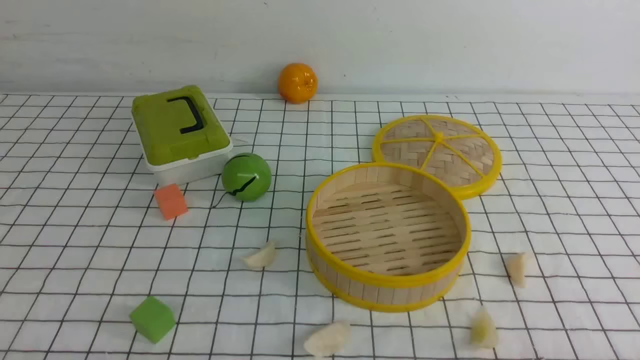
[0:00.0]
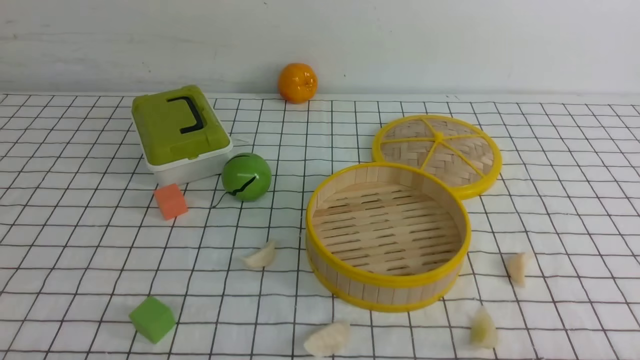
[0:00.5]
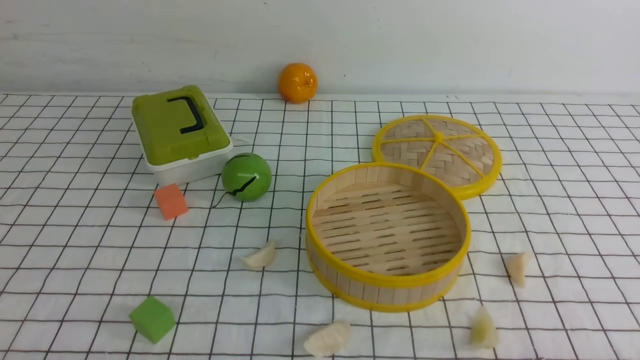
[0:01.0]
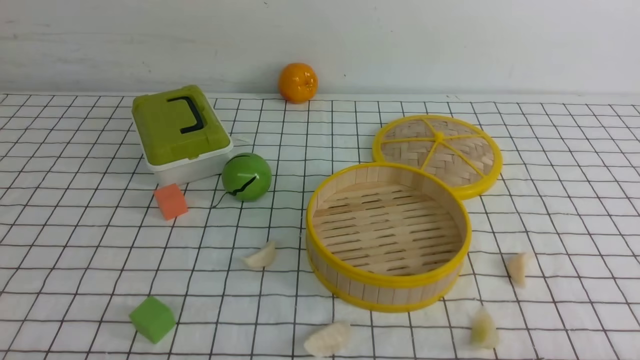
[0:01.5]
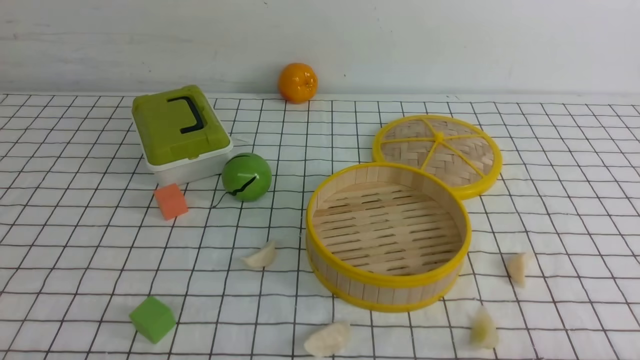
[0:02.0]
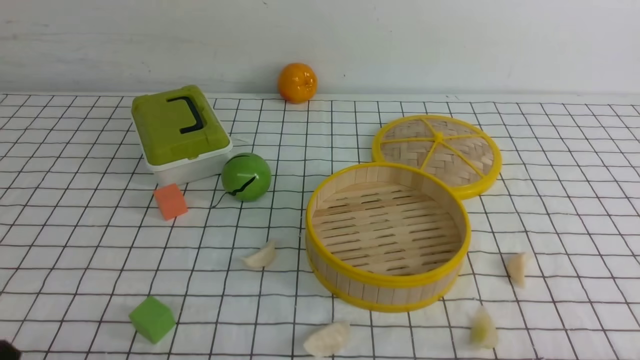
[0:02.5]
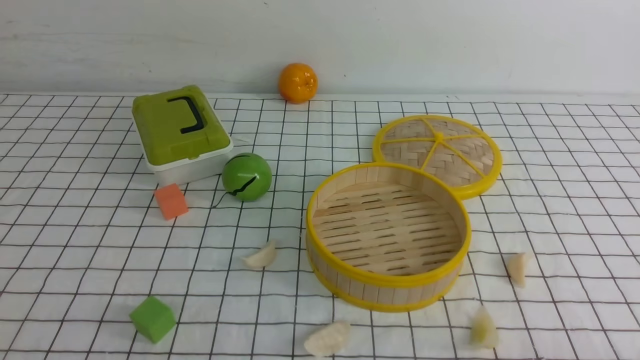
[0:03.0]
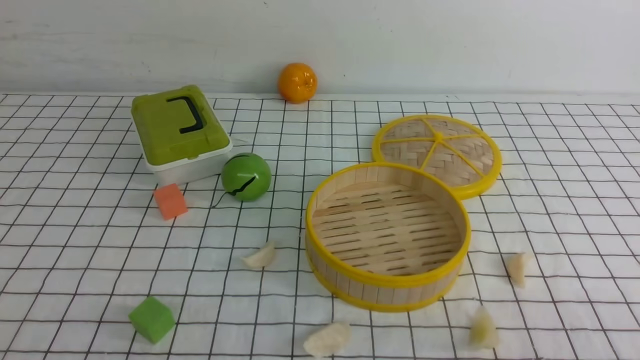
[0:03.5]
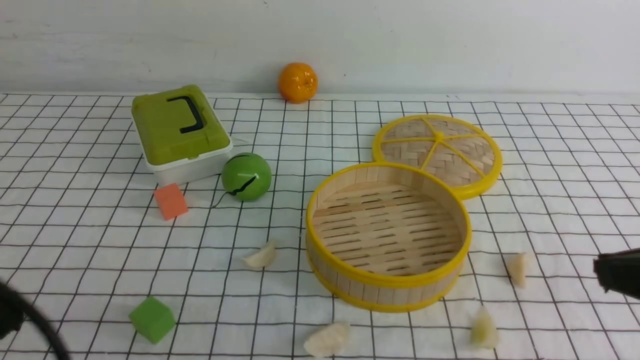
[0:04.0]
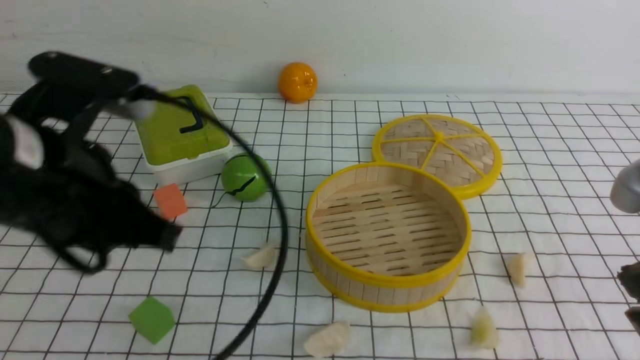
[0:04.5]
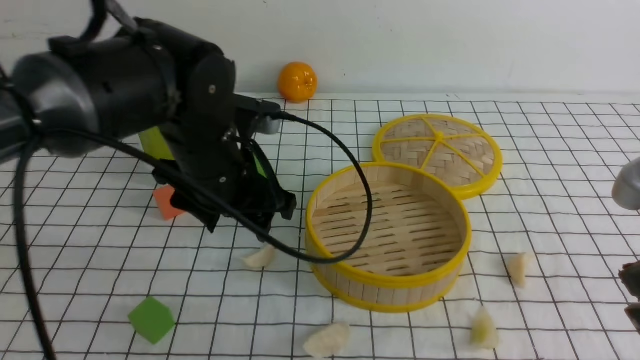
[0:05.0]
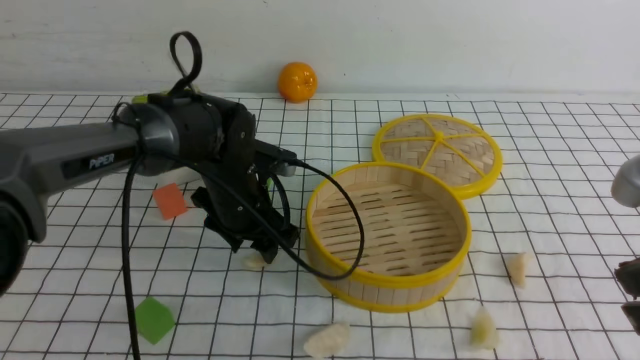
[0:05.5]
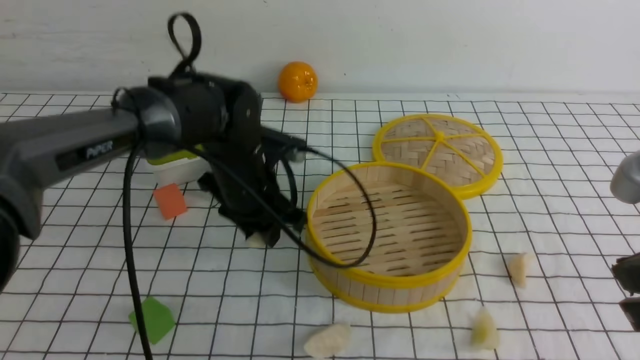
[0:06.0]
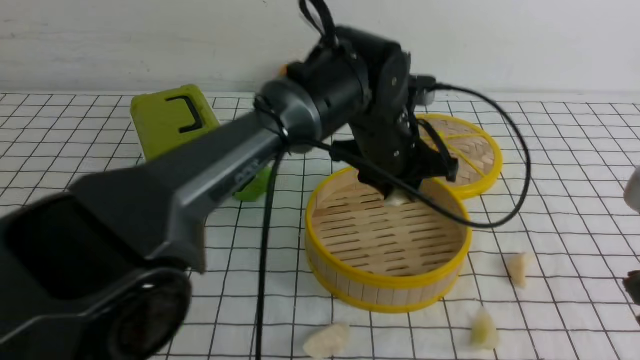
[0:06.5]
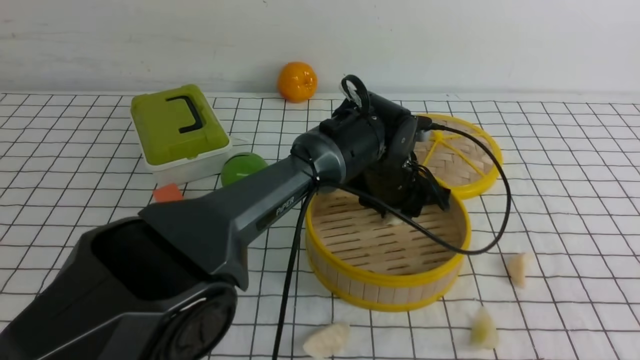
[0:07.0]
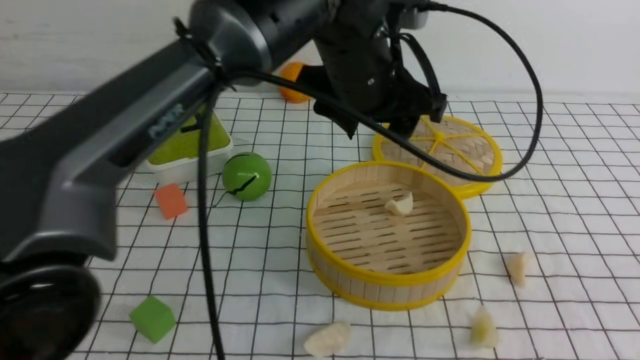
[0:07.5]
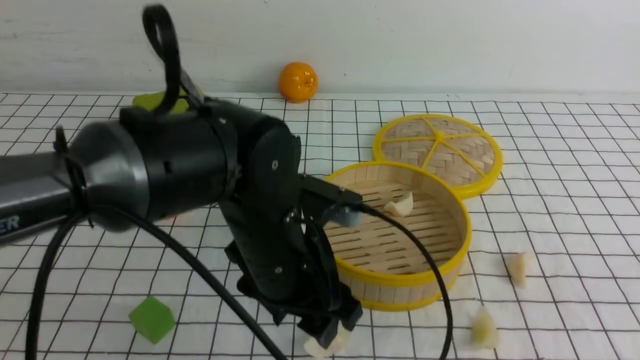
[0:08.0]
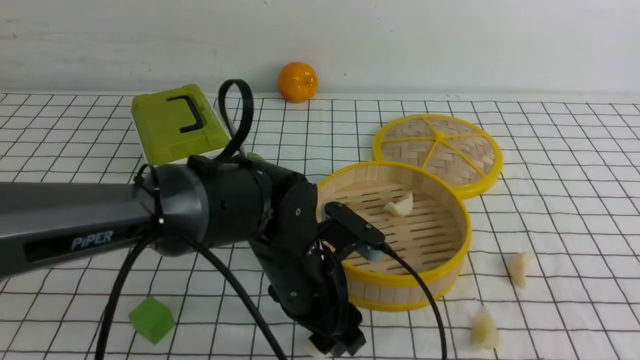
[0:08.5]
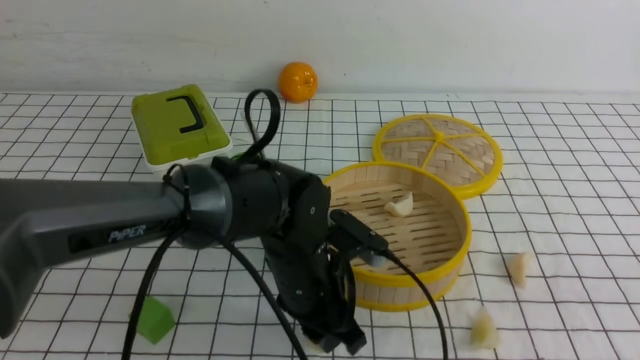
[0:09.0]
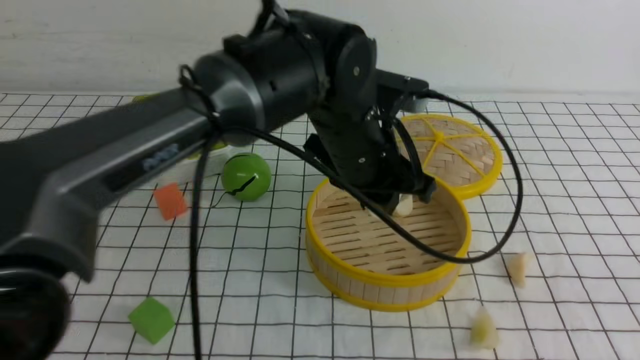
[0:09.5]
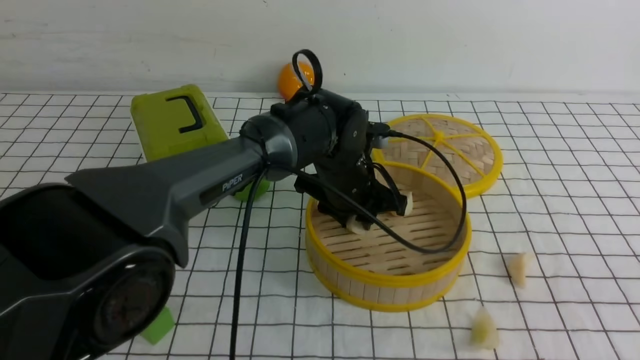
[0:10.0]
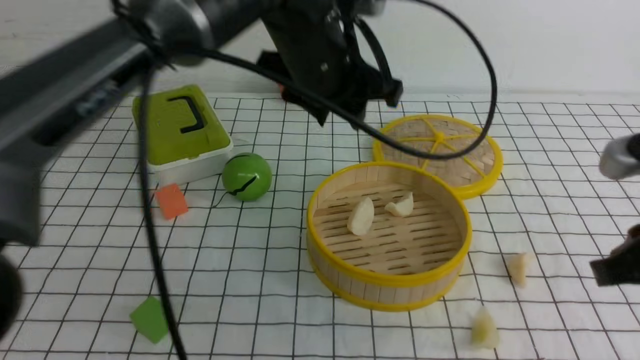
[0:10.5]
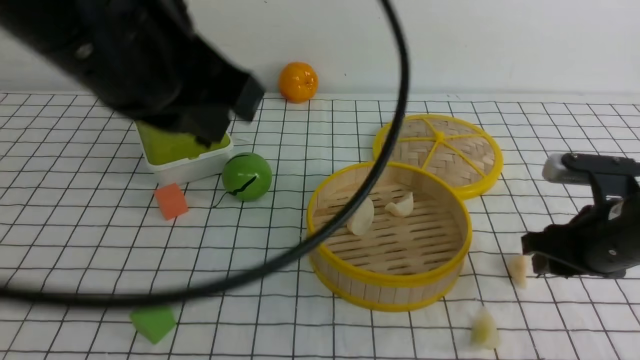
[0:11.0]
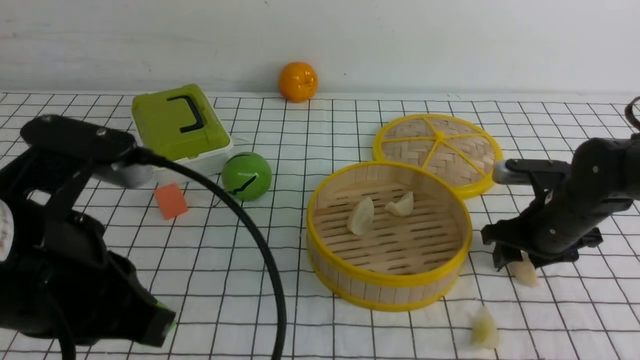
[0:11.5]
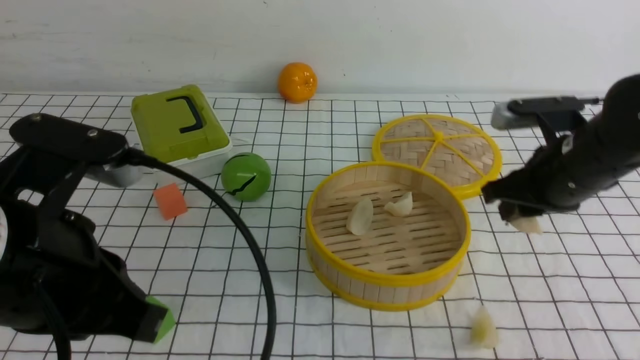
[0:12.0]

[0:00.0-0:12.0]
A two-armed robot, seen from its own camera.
Task of the whole recording: put the dumplings into the steamer on the table with the white tablecloth.
Step, 0:00.0 to 0:06.0: use the left arm to grab a dumpling.
Step, 0:06.5 to 0:07.5: use the left arm to put the dumpling into the steamer.
Step, 0:08.0 to 0:09.0: use the left arm to grab a dumpling.
Step, 0:09.5 to 0:10.5: use the left arm to put the dumpling into the steamer.
0:02.0 to 0:04.0: The left gripper is displaced upward by some 15 cm, and closes up; the right gripper heads upward and forward, covering roughly 20 cm, and closes up.
0:04.0 to 0:06.0: The left gripper heads forward, to the right and downward, covering about 35 cm, and opens.
0:06.0 to 0:08.0: The left gripper heads backward and upward, covering roughly 15 cm, reaches about 15 cm to the right, then returns, and opens, while the right gripper ends up roughly 5 cm from where it was.
0:08.0 to 0:10.0: The left gripper goes approximately 15 cm forward, downward and to the right, and closes its fingers.
0:10.0 to 0:12.0: The left gripper travels backward, to the left and upward by roughly 35 cm, and closes up. Meanwhile the right gripper heads forward and downward, covering some 25 cm, and opens, then closes once more.

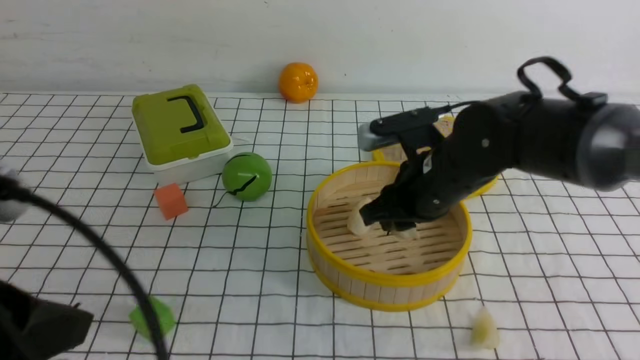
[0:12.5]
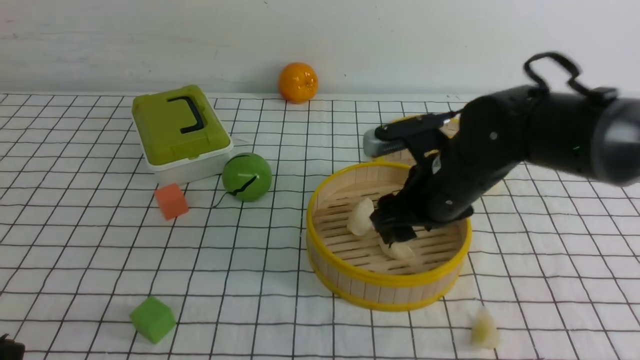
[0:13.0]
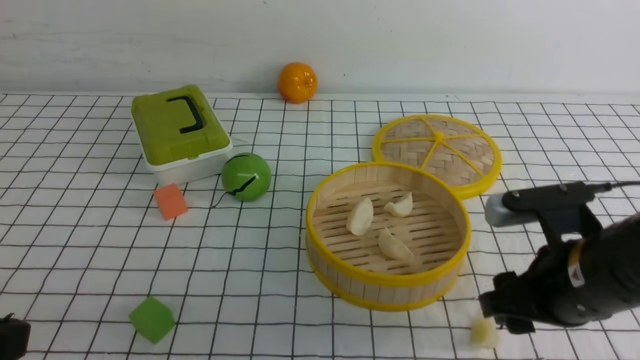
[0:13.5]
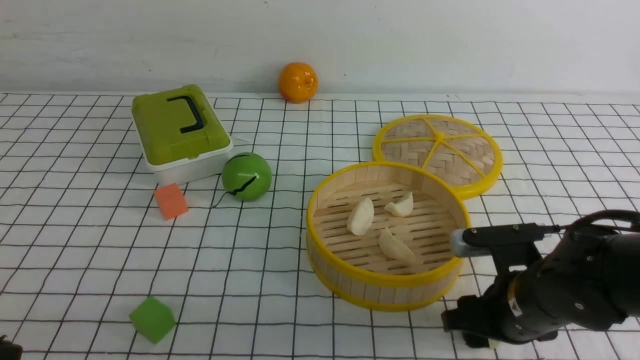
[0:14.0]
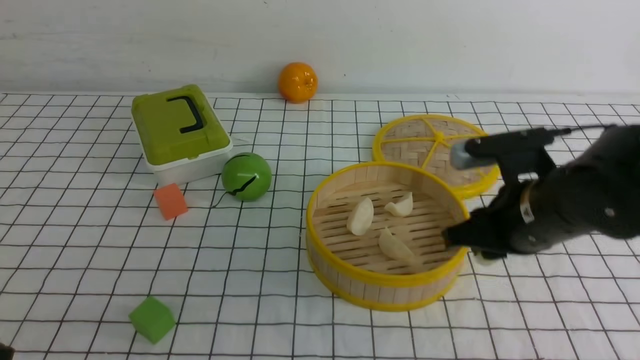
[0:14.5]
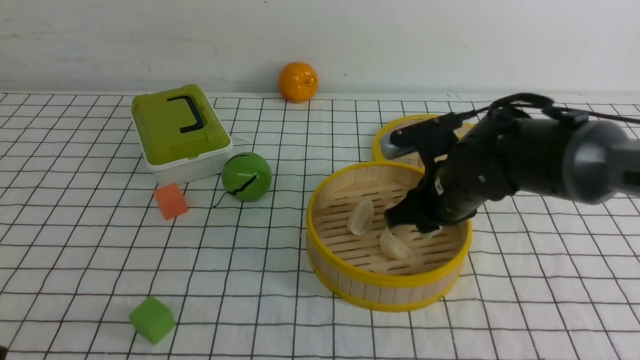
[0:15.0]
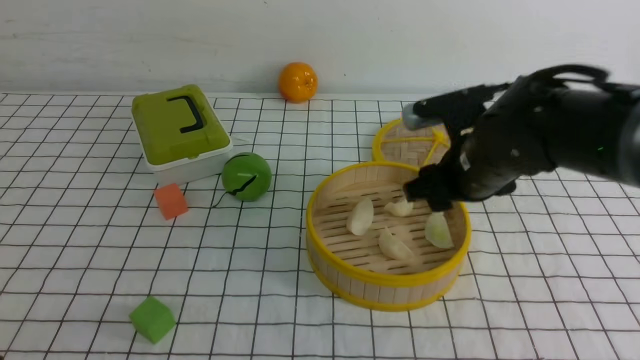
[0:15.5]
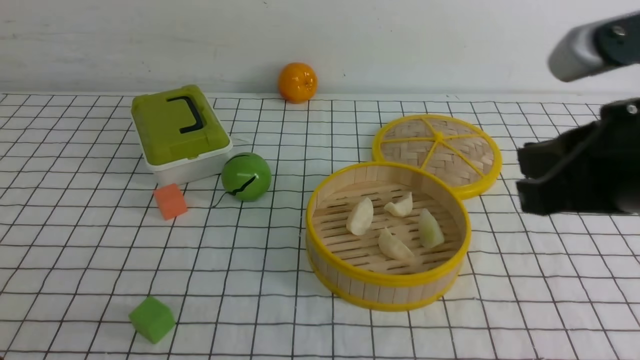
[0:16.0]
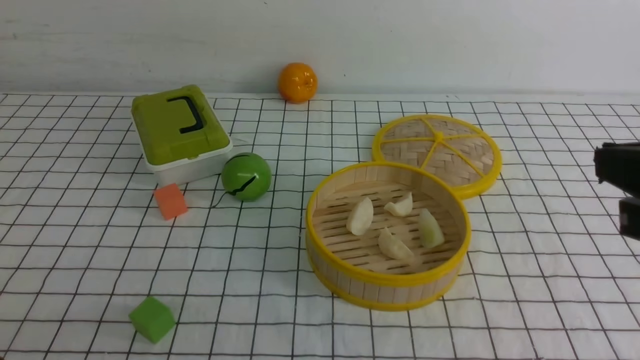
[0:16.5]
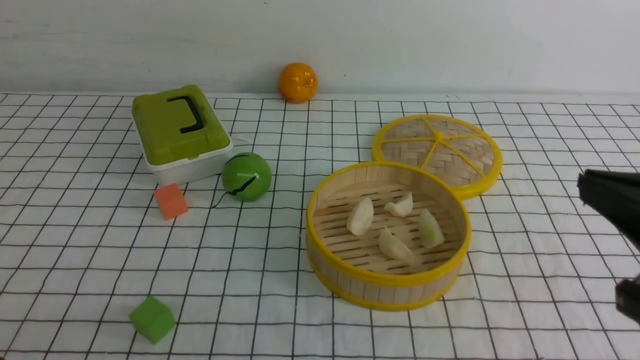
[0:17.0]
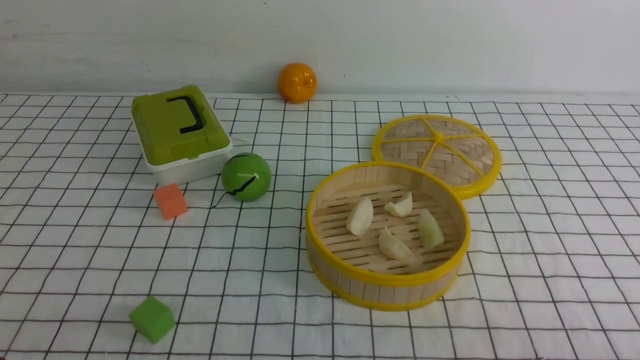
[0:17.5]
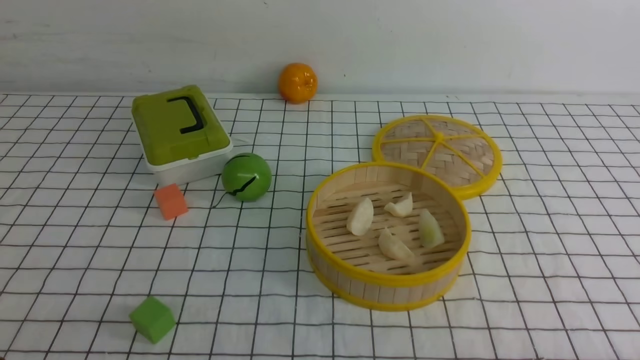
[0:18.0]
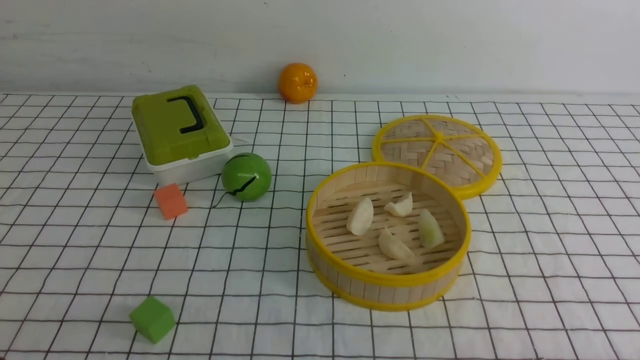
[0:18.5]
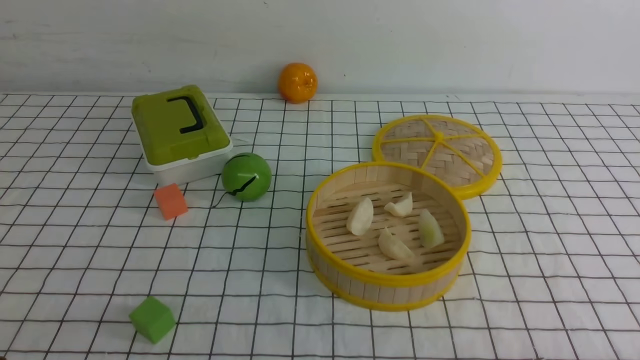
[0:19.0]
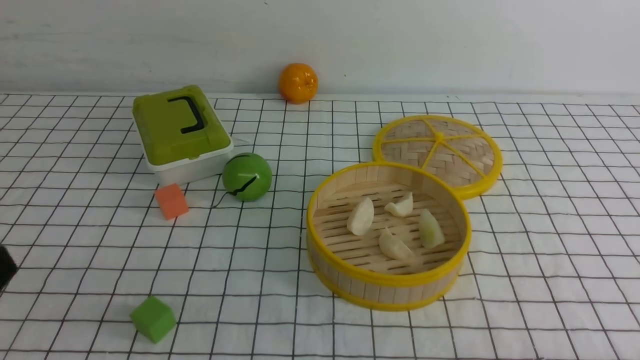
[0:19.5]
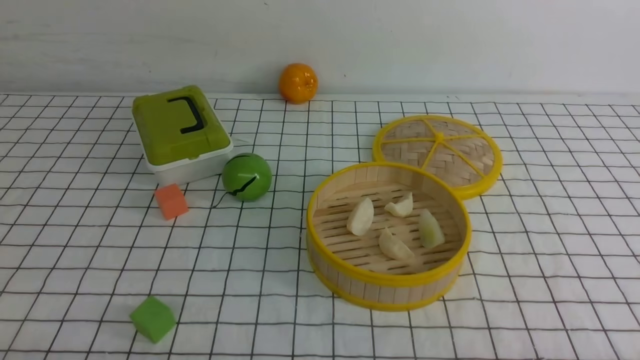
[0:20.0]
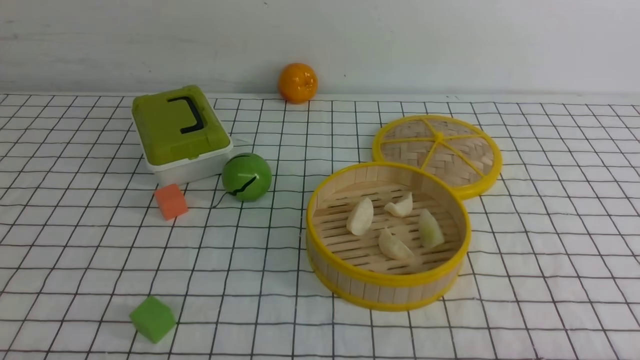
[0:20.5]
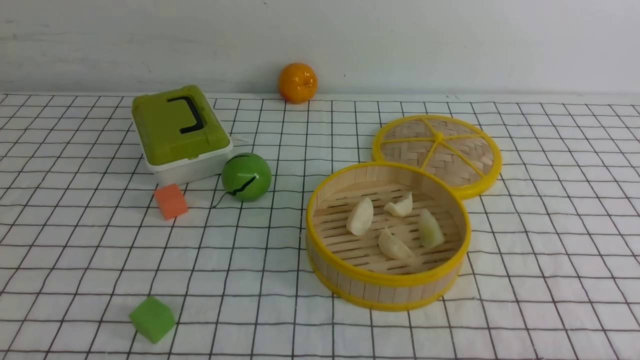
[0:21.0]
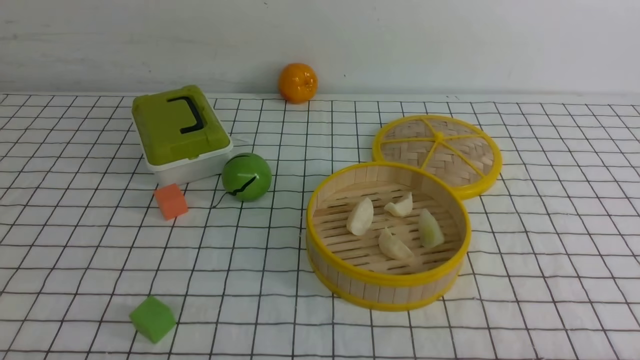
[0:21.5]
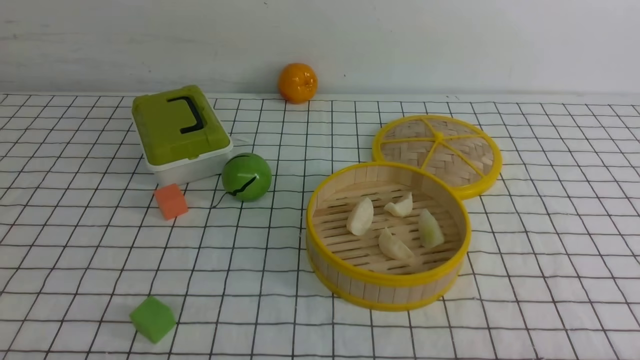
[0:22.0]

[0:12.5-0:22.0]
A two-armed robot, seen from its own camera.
Task of the whole recording: put the dumplings into the steamer on the table with the white tablecloth.
Step, 0:12.5 to 0:13.0: use the right arm to put the dumpling into the steamer.
Step, 0:13.5 to 0:14.5: use the right arm to grab a dumpling.
Step, 0:15.0 to 0:15.5: use the right arm to put the dumpling into the steamer.
0:12.5 to 0:14.5: The grippers both shift backward by approximately 5 cm. The right gripper opens, then closes again.
0:14.5 to 0:16.5: The right gripper shifts roughly 20 cm upward and backward, and closes up.
0:16.5 to 0:18.0: The right gripper goes approximately 25 cm downward, to the right and backward.
0:20.0 to 0:22.0: Both grippers stay about where they are.
